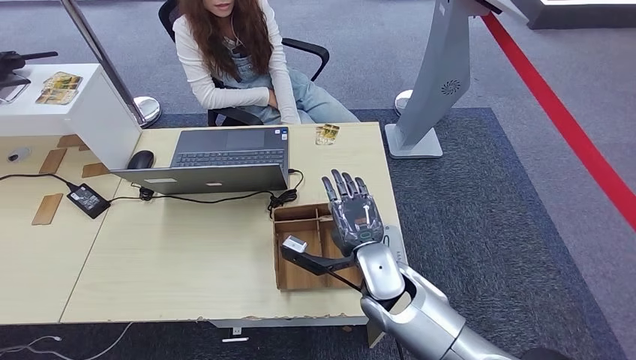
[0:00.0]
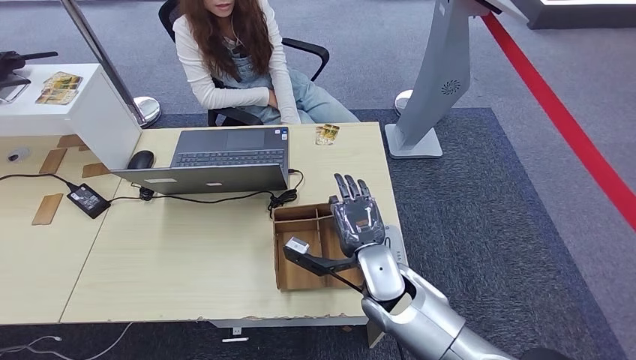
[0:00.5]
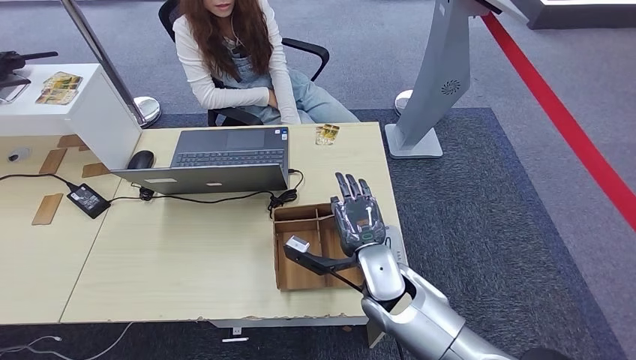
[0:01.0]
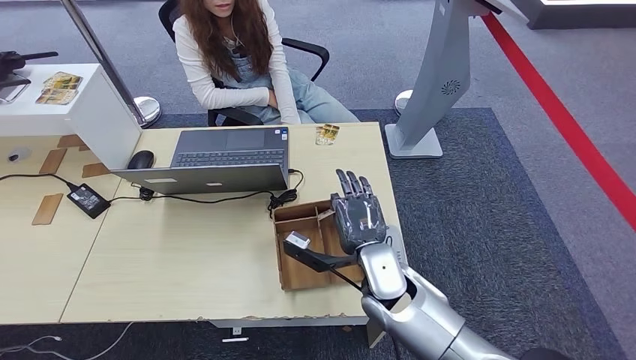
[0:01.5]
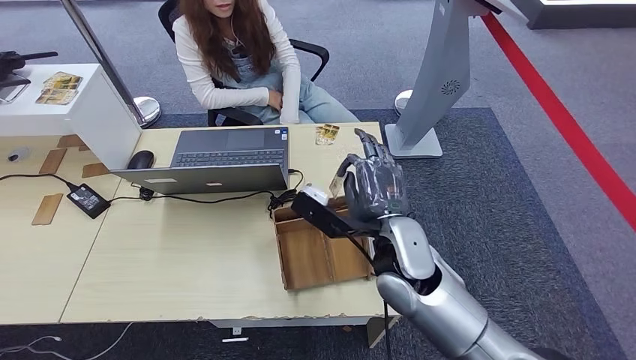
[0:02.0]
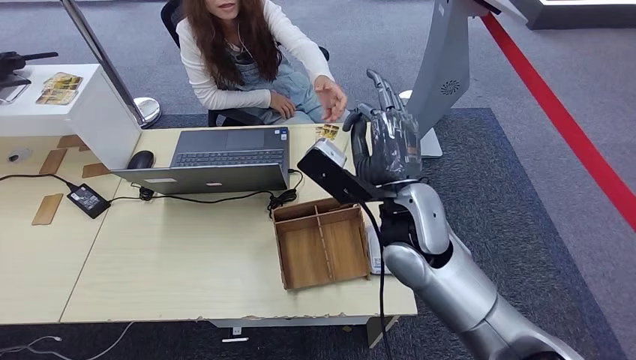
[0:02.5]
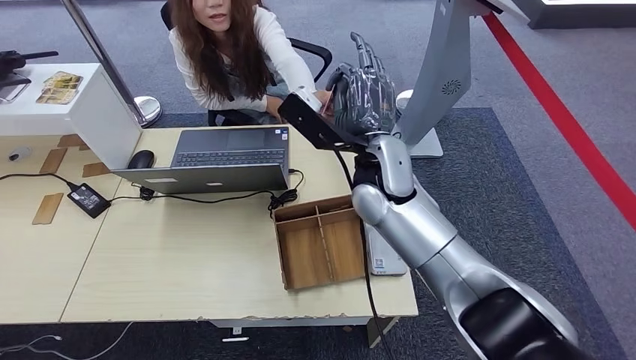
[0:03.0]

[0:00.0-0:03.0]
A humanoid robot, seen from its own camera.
Step, 0:01.5 to 0:03.0: Hand the room key to the person.
0:00.0 to 0:01.5: Both hands stay put.
